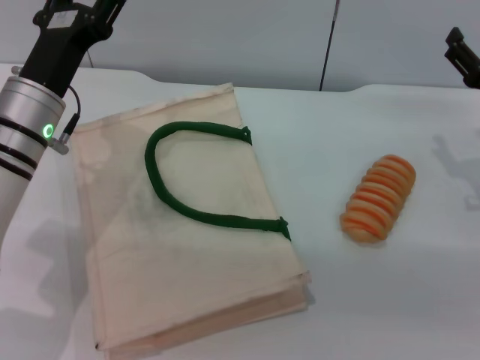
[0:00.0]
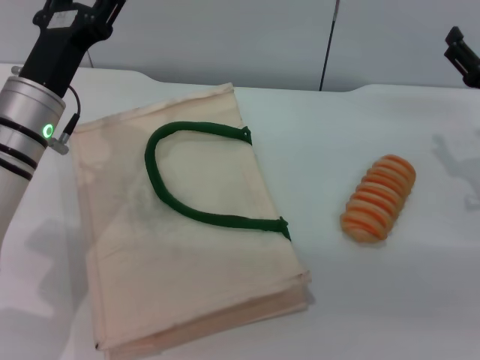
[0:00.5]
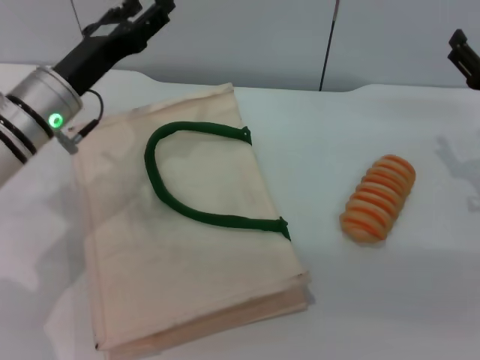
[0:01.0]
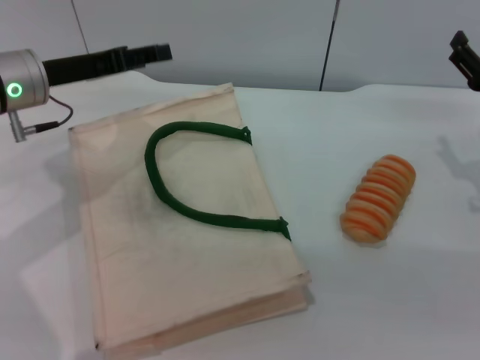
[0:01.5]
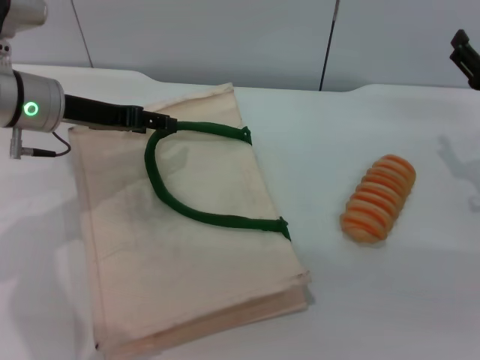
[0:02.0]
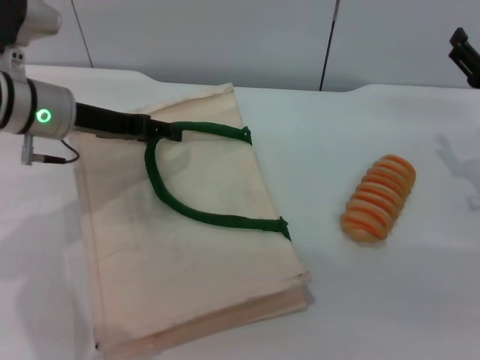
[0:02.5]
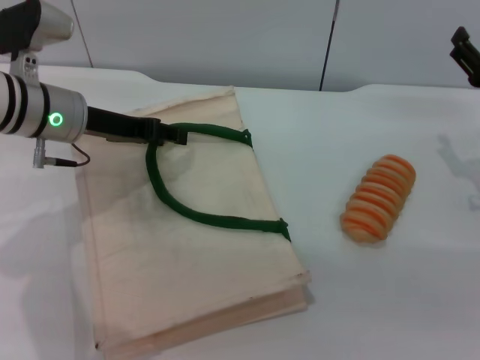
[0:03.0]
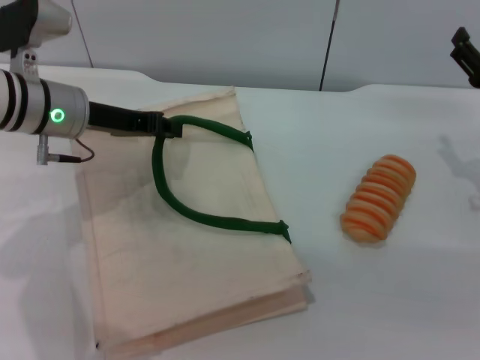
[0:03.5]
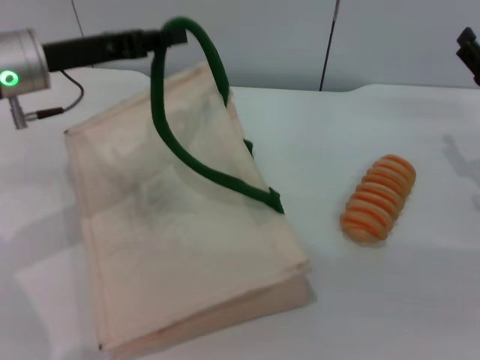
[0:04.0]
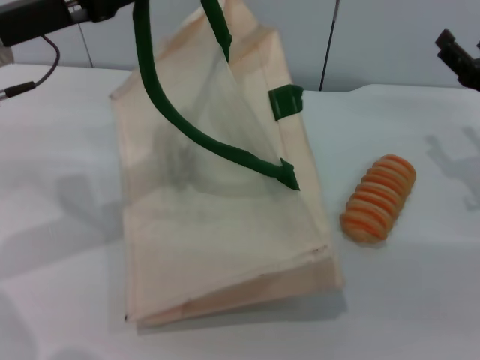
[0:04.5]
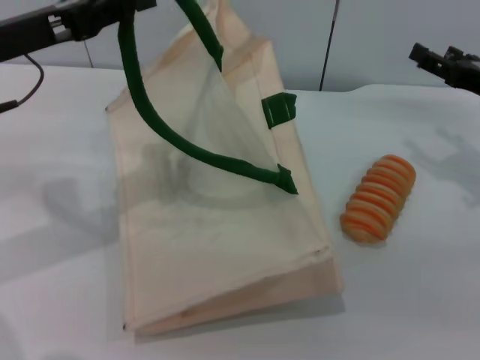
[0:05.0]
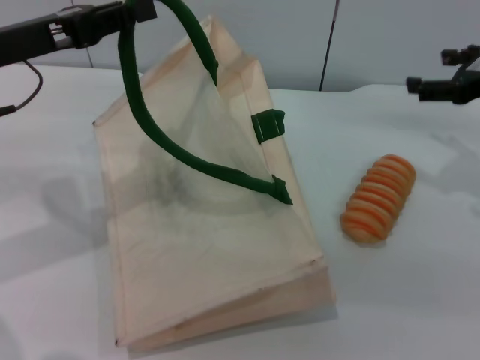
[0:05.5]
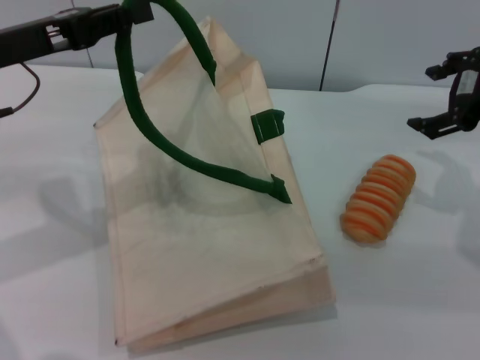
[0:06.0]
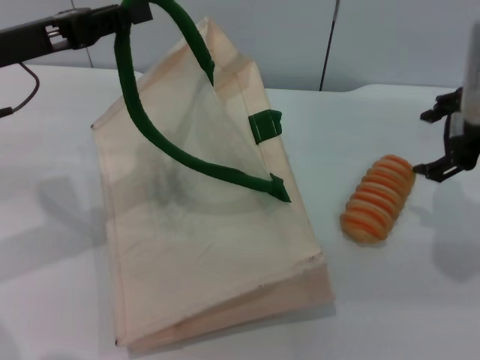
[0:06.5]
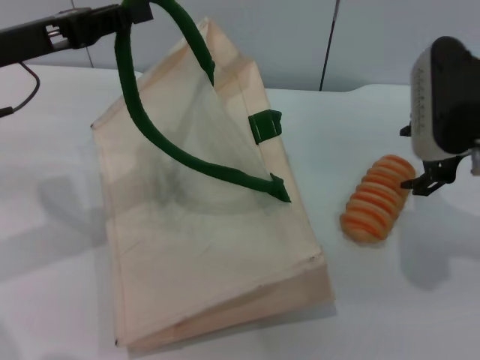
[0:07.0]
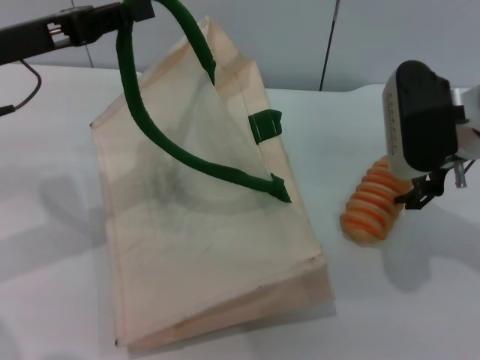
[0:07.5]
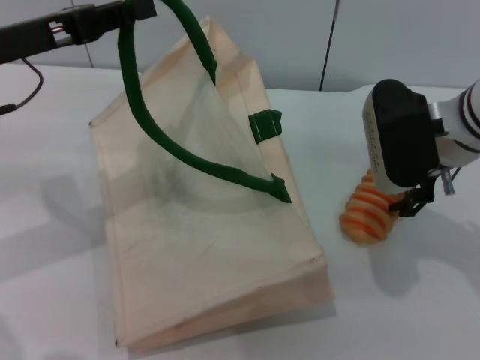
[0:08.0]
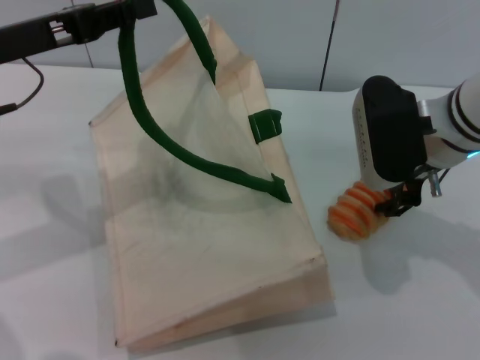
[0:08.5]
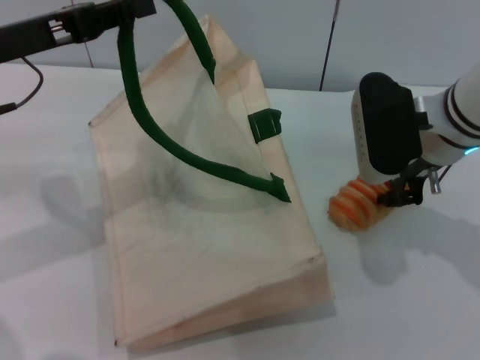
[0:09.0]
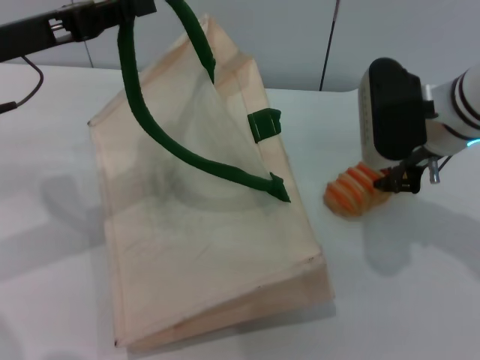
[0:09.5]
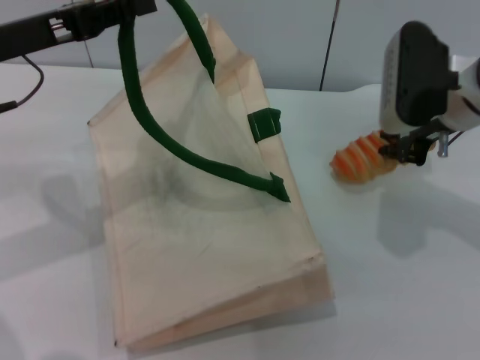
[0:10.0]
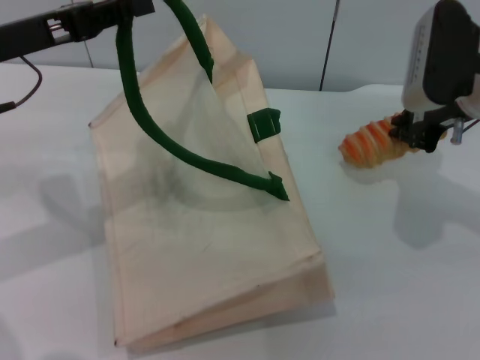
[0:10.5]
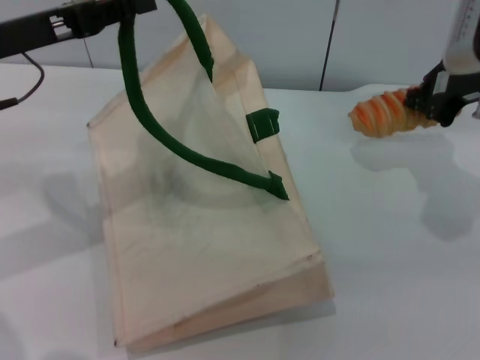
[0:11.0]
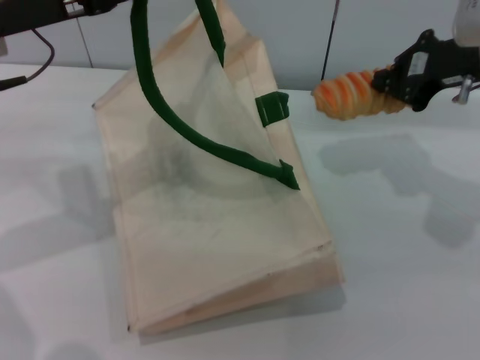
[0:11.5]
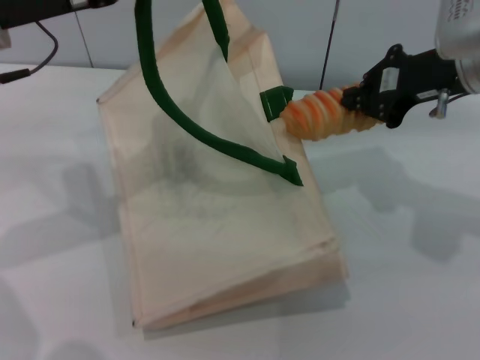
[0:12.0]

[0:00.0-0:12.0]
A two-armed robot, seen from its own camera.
Task of the whole recording: pick up the bread from the table and place it in the white handbag.
Step, 0:00.0 to 0:04.0: Lift the woven bag with the left gripper to open it.
Step, 0:04.5 to 0:11.0: Pick up the bread with the right gripper.
0:00.0 to 0:02.0: The left gripper changes place by some 5 cm.
0:02.0 to 0:04.0: The left gripper closes up.
0:04.0 to 0:06.0: The left gripper moves about 5 cm. The right gripper shifts some 15 cm upward.
0:06.0 to 0:08.0: The right gripper is displaced to the left and downward by approximately 10 cm.
0:08.0 to 0:10.0: The right gripper closes up.

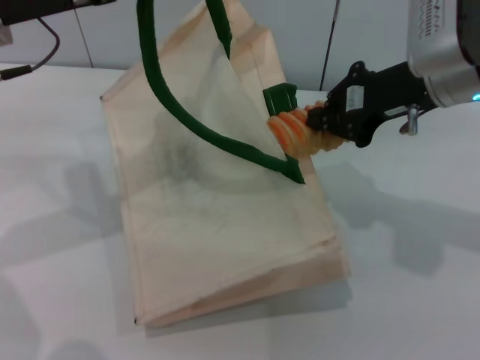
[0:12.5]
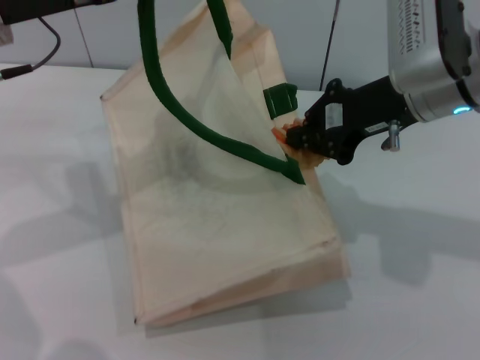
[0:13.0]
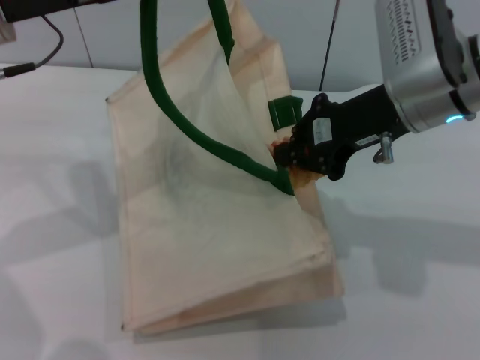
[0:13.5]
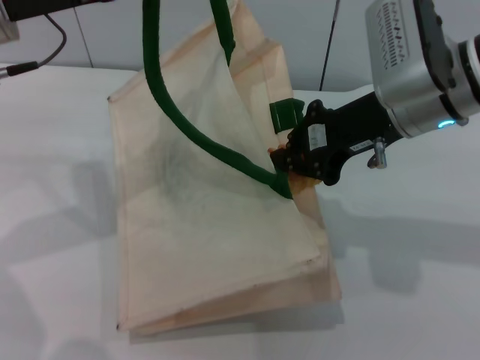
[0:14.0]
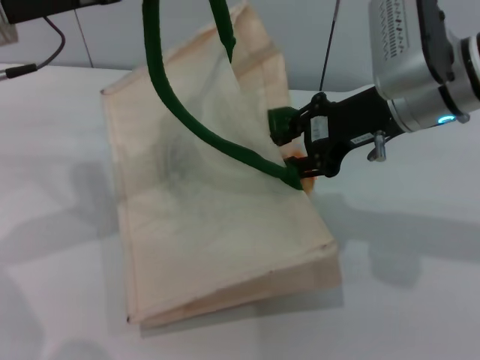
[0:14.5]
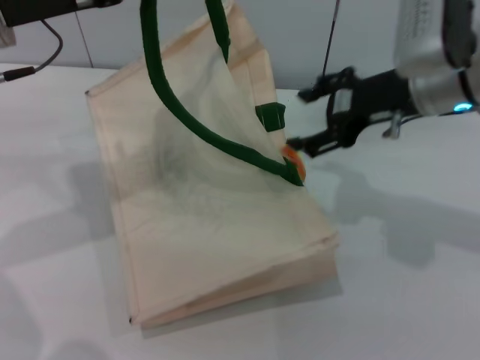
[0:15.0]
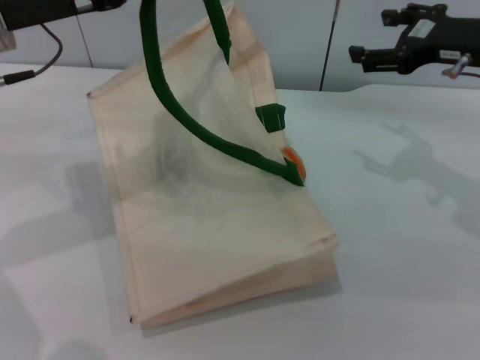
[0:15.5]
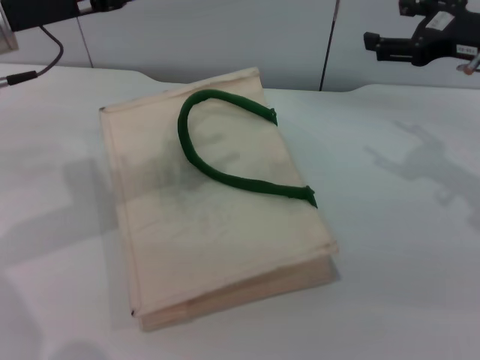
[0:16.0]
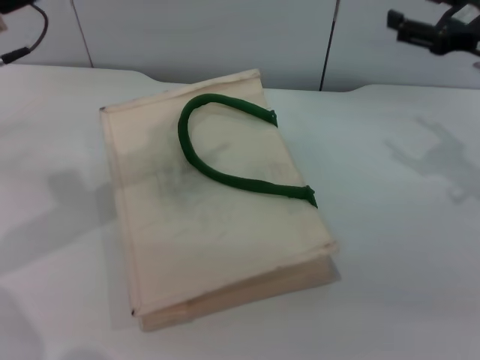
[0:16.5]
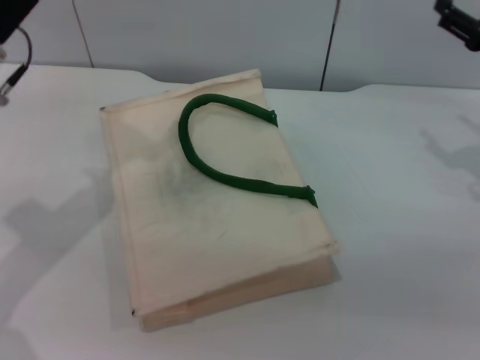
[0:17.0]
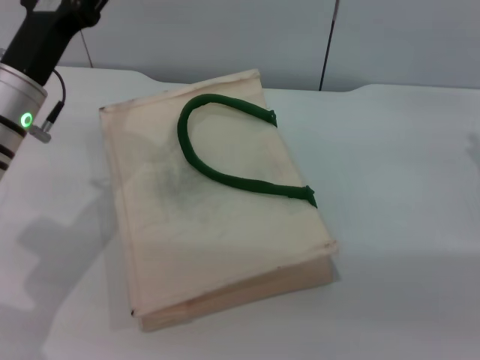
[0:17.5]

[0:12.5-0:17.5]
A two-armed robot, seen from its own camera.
Task of the whole recording: pick up the bread from the table and place it in the white handbag.
Step, 0:12.5 to 0:15.0: Place the bread into the woven bag with the right gripper.
Step, 0:15.5 to 0:16.5: Lower the woven bag with the left gripper to close it.
0:12.5 to 0:15.0: The right gripper opens.
0:15.0 to 0:17.5: The left gripper goes about 10 cm downward, and opens up. Meanwhile the right gripper heads to the right and downward, covering roughly 15 cm.
